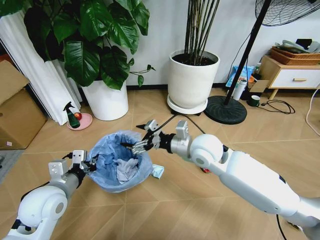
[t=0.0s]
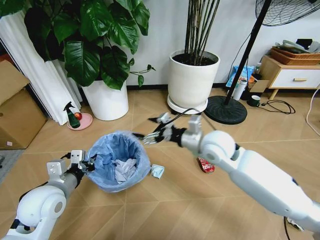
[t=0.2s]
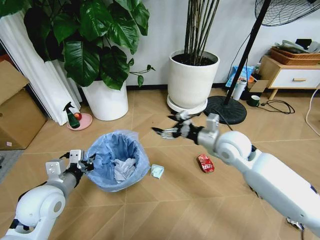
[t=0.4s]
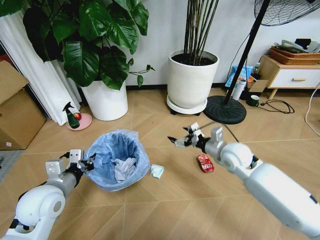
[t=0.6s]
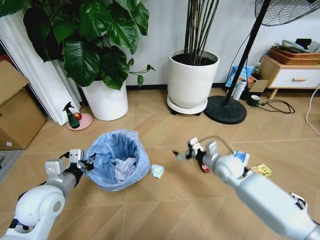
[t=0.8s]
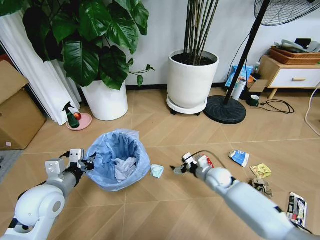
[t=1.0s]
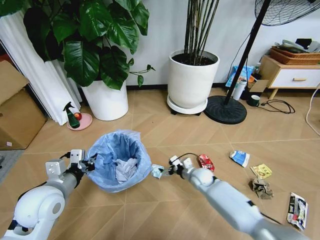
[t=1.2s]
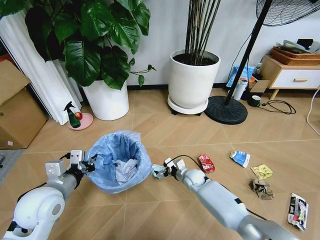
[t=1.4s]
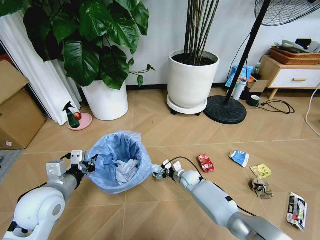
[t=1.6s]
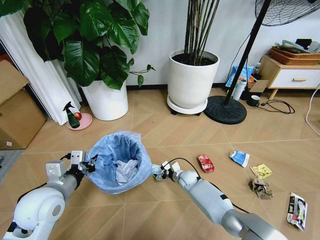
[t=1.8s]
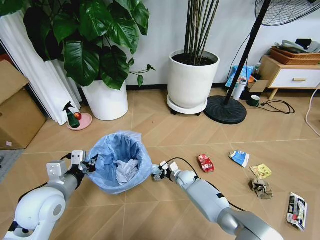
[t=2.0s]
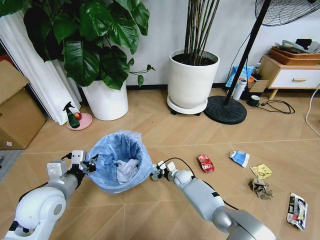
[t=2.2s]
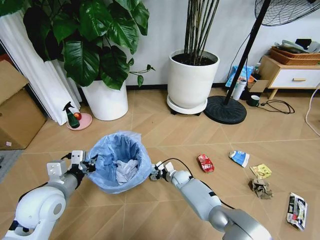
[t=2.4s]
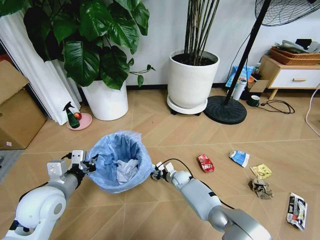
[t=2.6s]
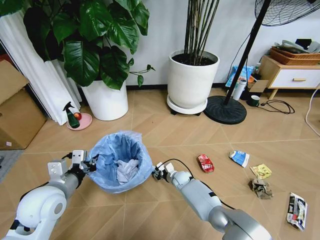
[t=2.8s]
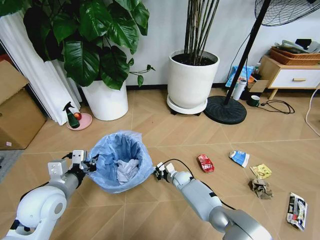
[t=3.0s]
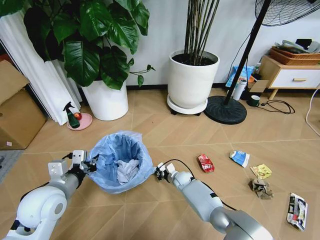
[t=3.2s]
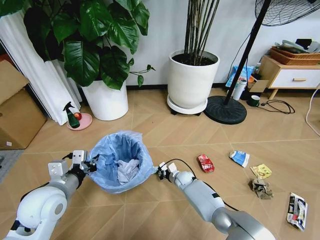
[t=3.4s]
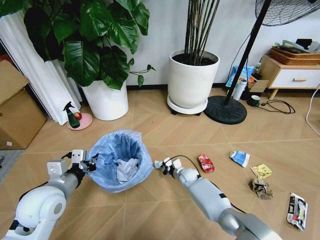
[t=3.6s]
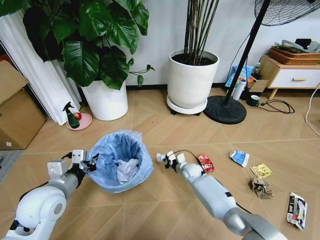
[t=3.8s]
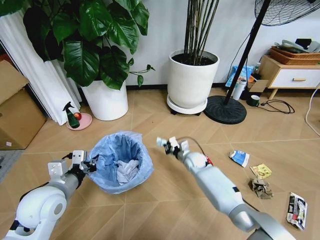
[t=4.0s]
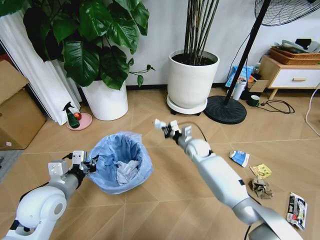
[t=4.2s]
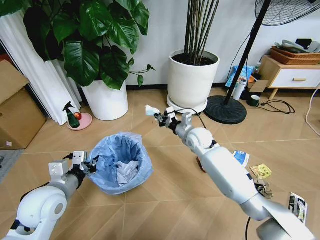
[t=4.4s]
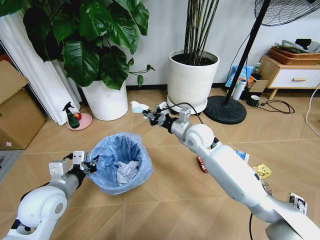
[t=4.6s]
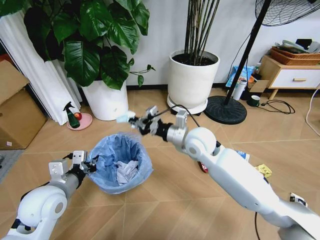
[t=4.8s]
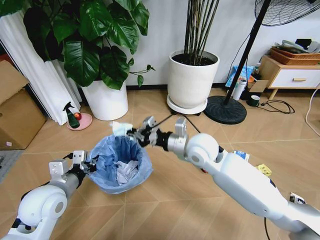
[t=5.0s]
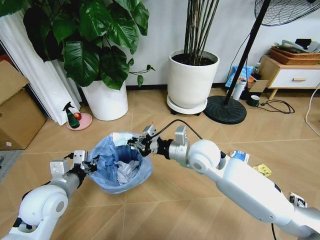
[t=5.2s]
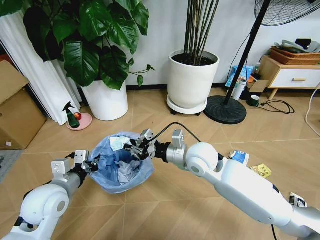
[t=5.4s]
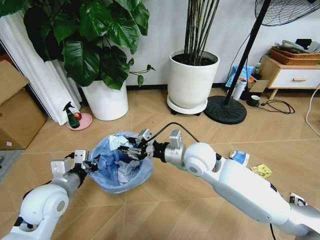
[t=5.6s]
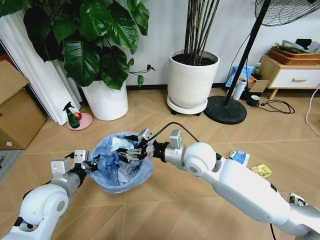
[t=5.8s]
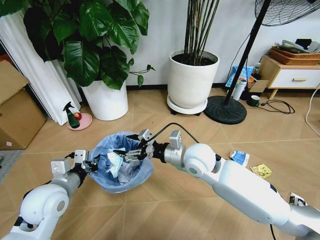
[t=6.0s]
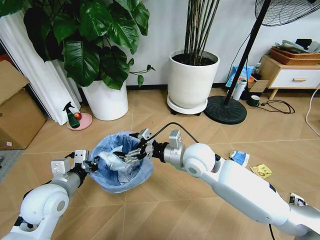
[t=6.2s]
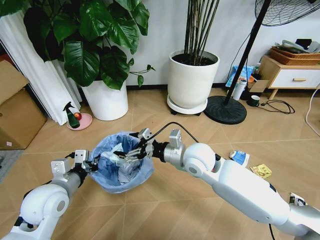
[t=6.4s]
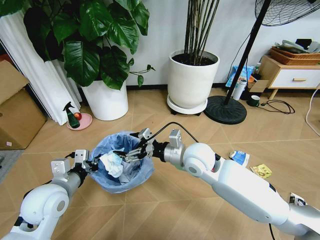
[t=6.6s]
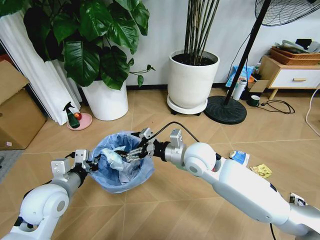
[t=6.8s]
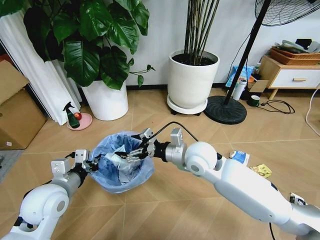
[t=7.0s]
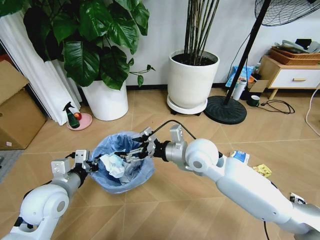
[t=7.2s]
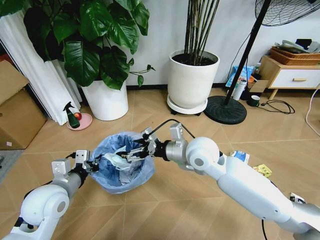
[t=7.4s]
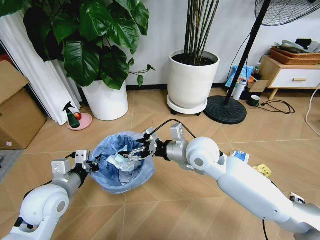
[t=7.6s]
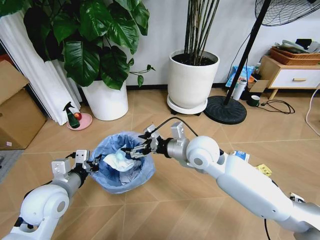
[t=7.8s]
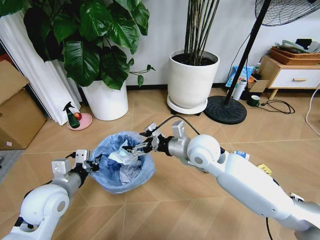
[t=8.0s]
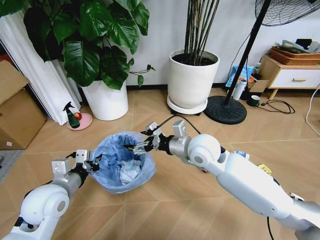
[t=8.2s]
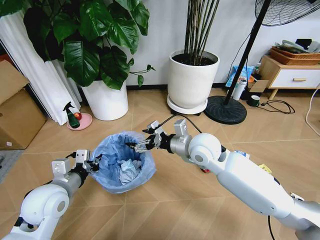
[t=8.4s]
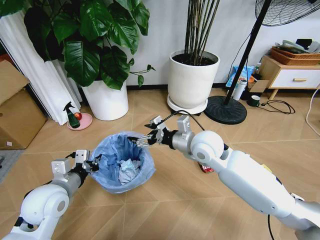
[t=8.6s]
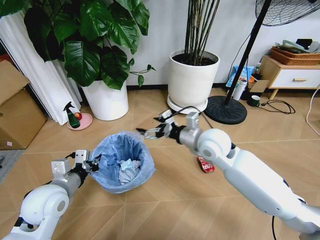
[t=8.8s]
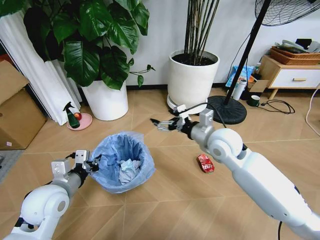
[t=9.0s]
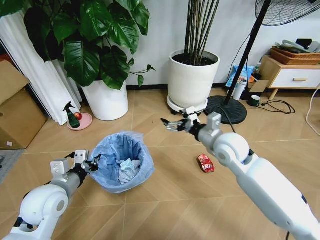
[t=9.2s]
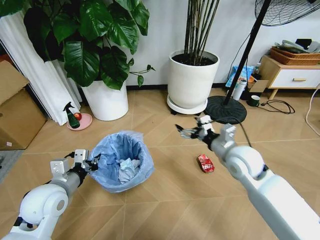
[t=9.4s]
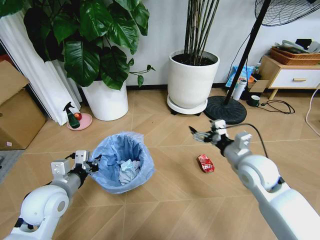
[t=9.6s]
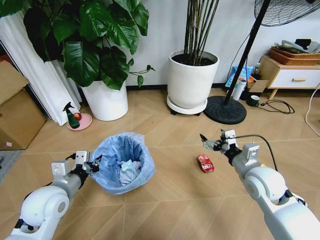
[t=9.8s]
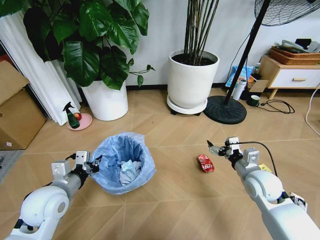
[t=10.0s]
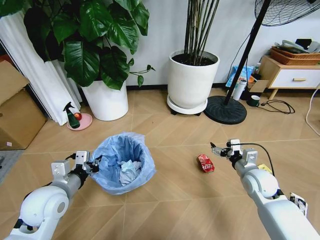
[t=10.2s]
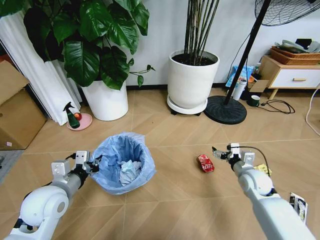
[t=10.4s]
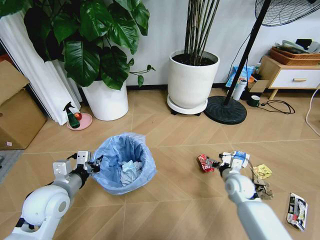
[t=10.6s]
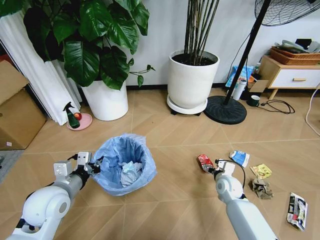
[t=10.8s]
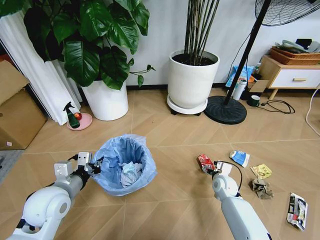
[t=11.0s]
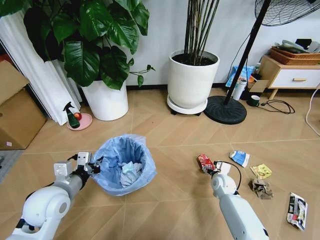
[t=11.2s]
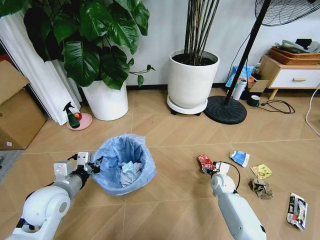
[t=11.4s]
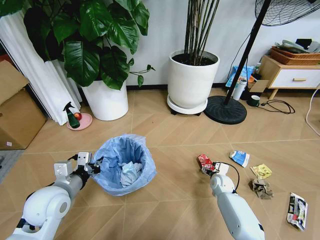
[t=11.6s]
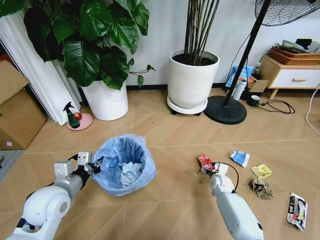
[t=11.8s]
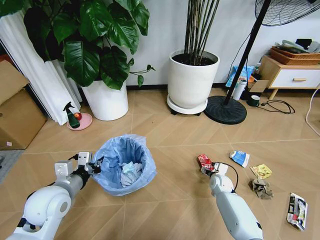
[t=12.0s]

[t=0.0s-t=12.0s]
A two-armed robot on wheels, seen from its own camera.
Task of the whole recording: Pick up the trash bin and place the garbage on the floor into it.
t=0.0s to t=1.6s: The right gripper goes approximately 35 cm downward.
t=1.6s to t=3.0s: The right gripper closes up.
t=3.0s to t=4.4s: The right gripper goes about 25 cm upward.
t=4.4s to t=6.0s: The right gripper heads backward and upward, covering some 15 cm, and opens.
t=6.0s to t=7.6s: There are only small adjustments of the grippers.
t=7.6s to t=9.0s: The right gripper shifts about 5 cm to the right.
t=9.0s to t=10.4s: The right gripper goes roughly 25 cm downward and to the right.
t=10.4s to t=12.0s: The right gripper goes approximately 15 cm downward, to the left and forward.

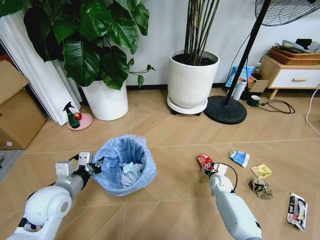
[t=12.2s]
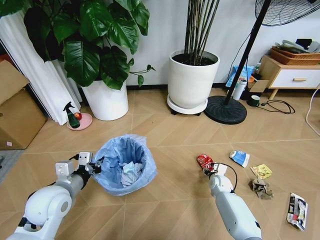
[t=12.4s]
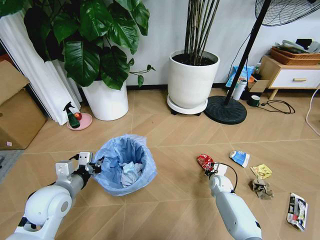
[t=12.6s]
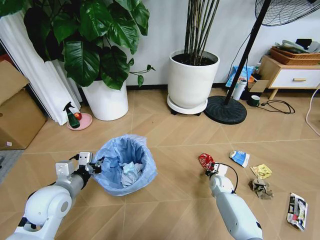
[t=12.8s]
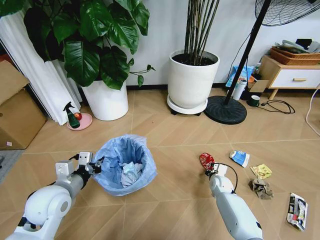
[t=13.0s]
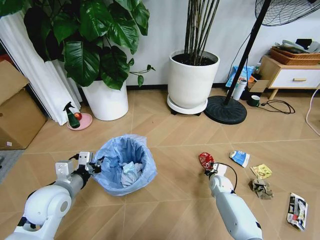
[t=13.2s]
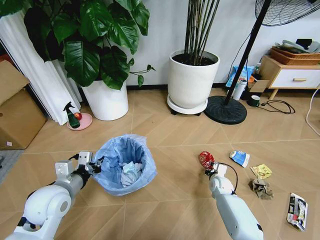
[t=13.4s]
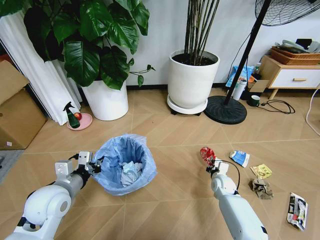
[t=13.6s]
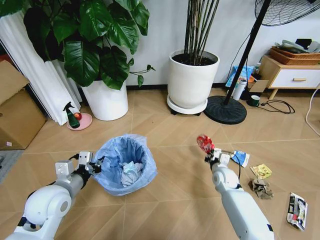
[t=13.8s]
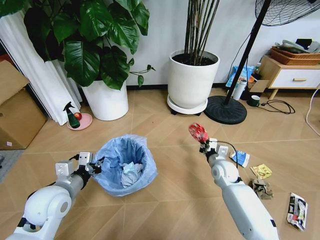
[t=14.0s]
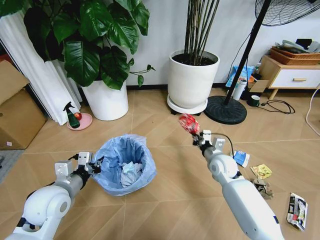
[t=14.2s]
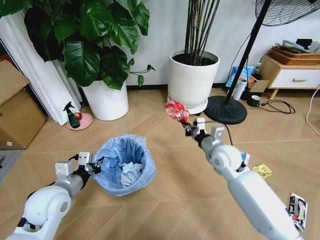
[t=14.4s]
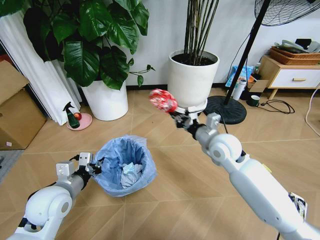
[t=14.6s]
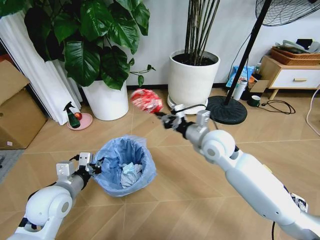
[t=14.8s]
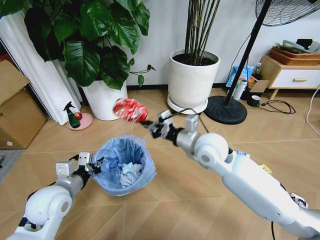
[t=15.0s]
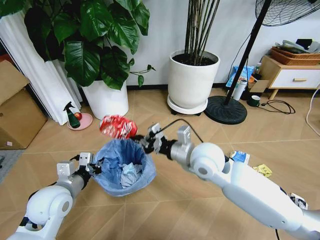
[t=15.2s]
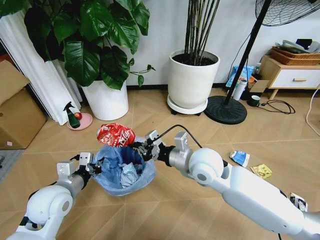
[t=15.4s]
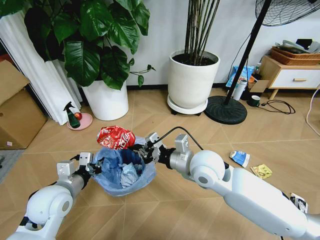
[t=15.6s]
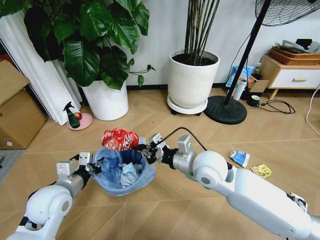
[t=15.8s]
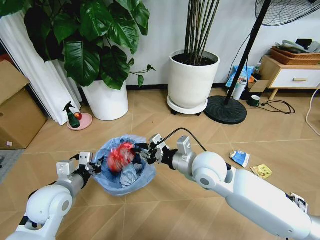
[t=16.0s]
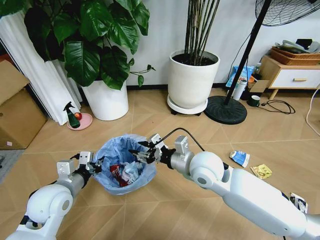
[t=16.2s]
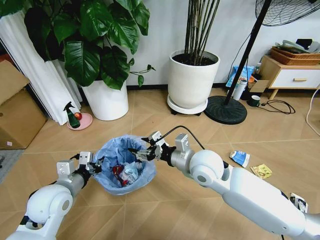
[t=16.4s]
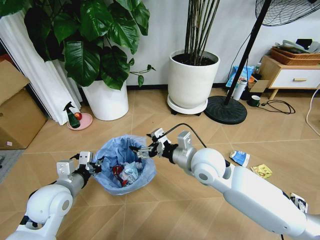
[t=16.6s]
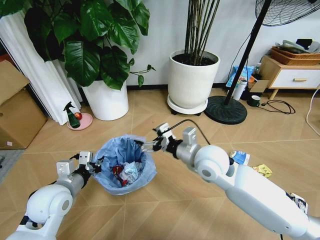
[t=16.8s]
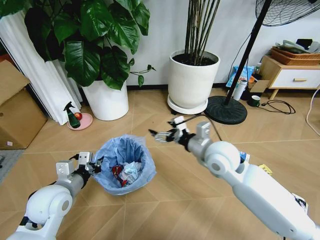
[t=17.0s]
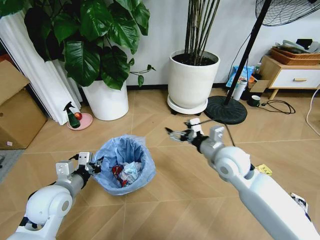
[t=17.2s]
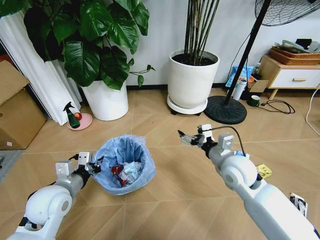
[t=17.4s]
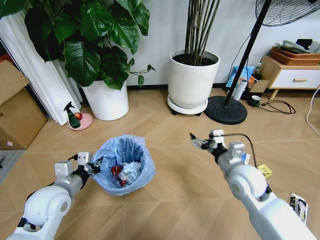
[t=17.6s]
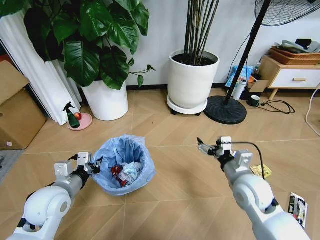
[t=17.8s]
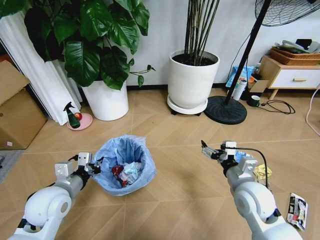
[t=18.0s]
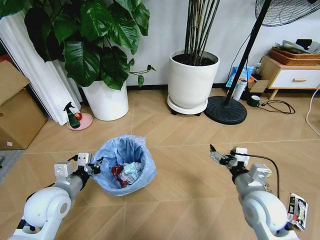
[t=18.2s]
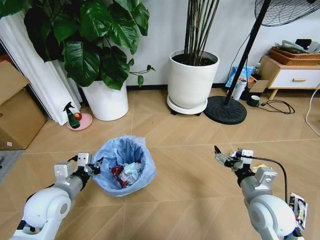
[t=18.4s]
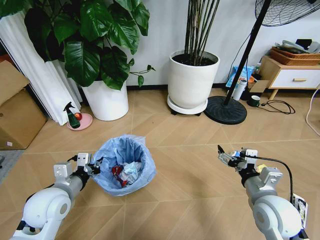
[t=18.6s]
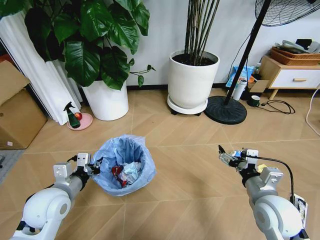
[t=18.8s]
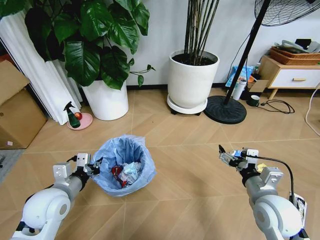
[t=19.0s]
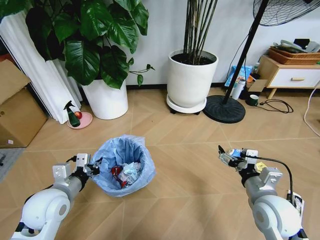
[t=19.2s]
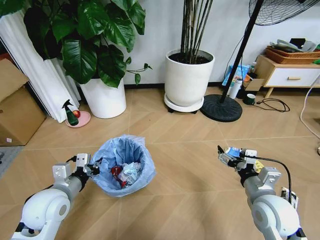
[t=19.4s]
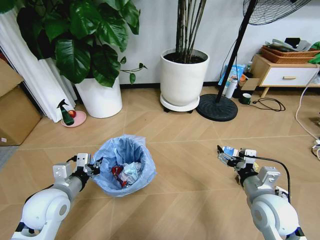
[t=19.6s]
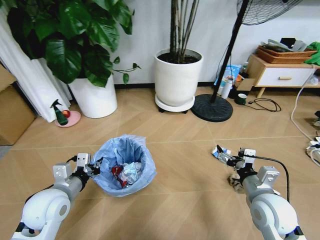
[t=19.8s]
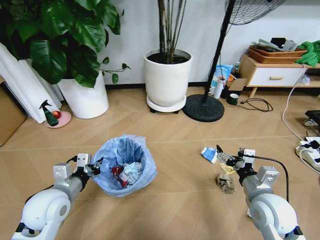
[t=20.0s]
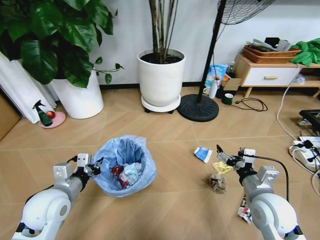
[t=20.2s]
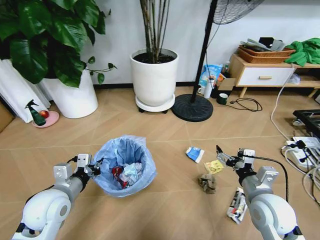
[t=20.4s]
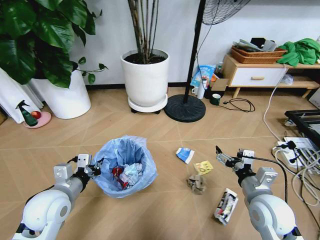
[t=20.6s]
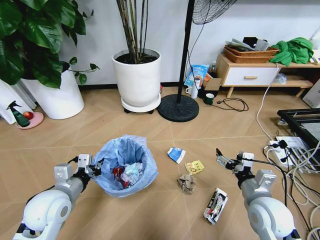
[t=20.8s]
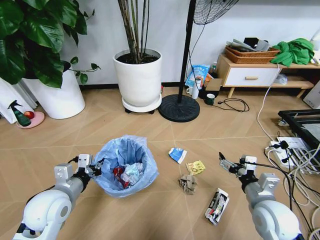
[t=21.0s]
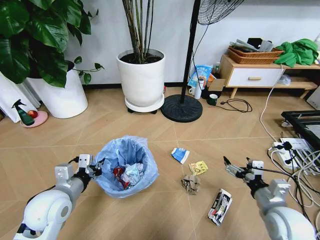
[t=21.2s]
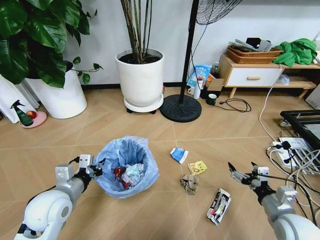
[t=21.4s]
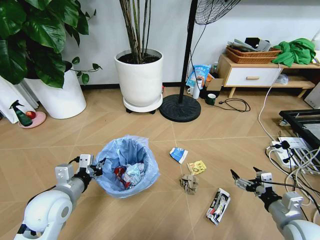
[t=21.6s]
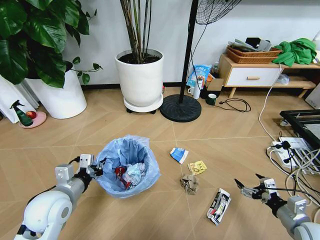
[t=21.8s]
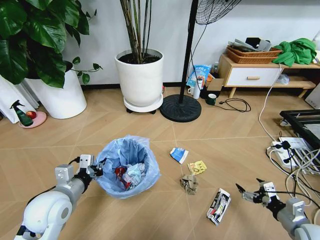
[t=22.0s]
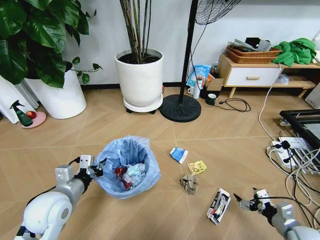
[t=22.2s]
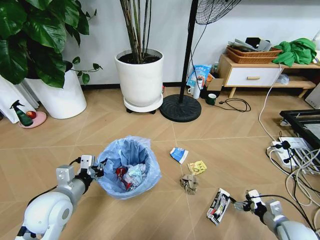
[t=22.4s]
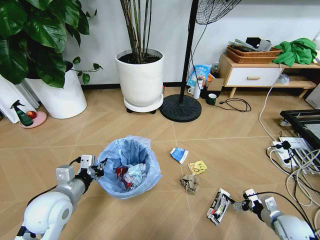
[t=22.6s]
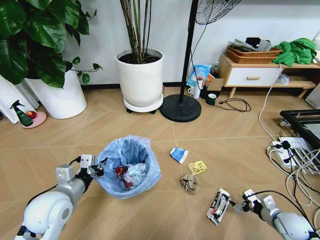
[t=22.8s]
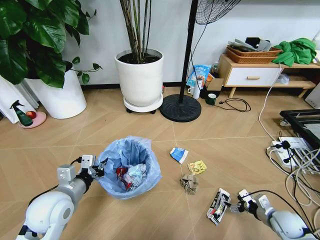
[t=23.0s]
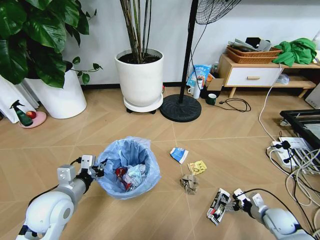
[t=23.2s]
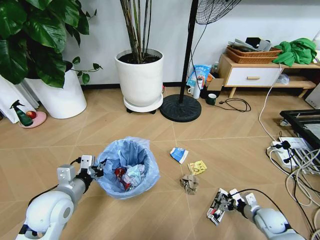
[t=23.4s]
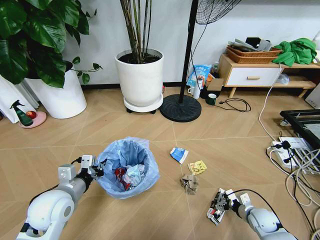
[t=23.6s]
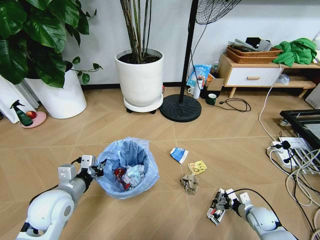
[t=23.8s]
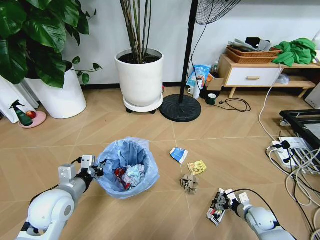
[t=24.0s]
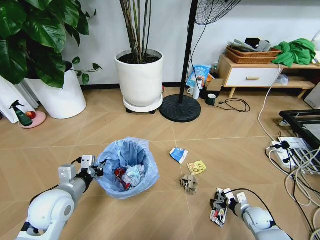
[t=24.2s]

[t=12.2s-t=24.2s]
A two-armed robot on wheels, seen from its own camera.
Task of the whole recording: Pick up the trash bin and place the garbage on the floor into it.
t=12.2s to t=13.8s: The right gripper heads upward, covering approximately 5 cm, and closes.
t=13.8s to t=15.2s: The right gripper goes about 30 cm upward and to the left.
t=15.2s to t=16.6s: The right gripper opens up.
t=16.6s to t=18.2s: The right gripper goes some 20 cm to the right, backward and downward.
t=19.8s to t=21.2s: The right gripper shifts by some 5 cm.
t=21.2s to t=22.6s: The right gripper moves downward and to the right, roughly 20 cm.
t=22.6s to t=24.2s: The right gripper goes approximately 10 cm downward, to the left and forward.
